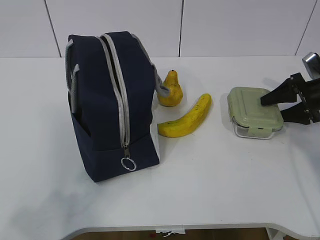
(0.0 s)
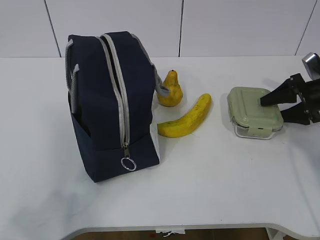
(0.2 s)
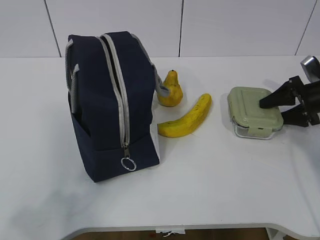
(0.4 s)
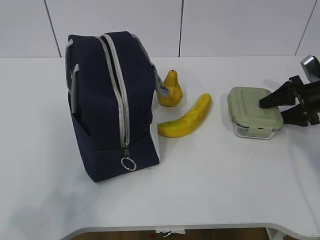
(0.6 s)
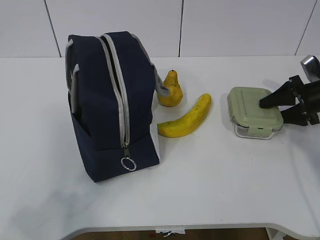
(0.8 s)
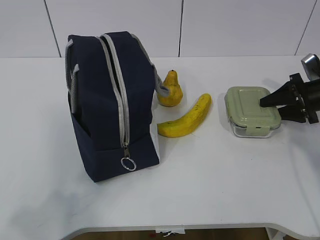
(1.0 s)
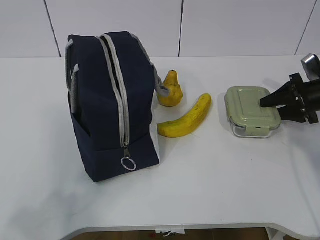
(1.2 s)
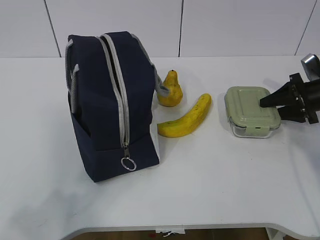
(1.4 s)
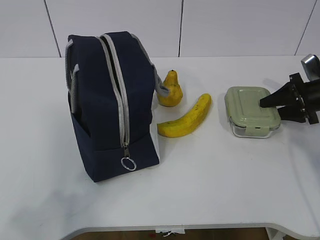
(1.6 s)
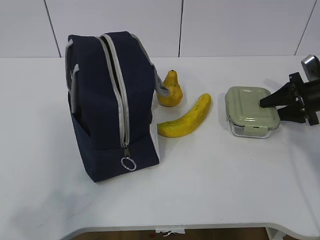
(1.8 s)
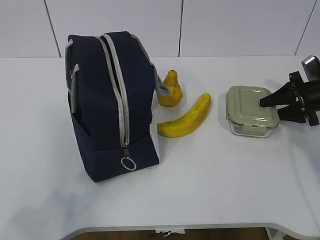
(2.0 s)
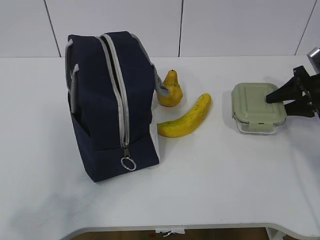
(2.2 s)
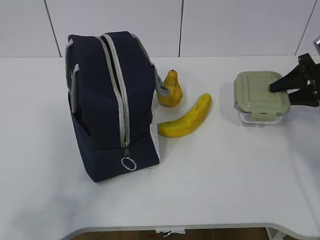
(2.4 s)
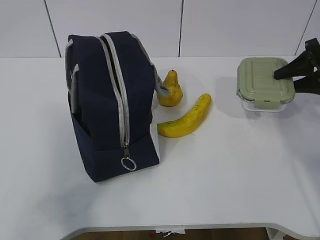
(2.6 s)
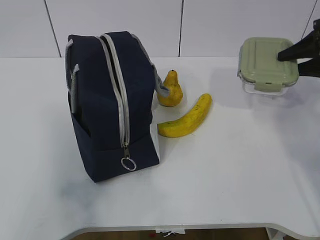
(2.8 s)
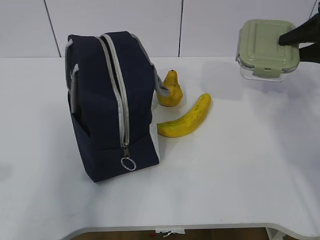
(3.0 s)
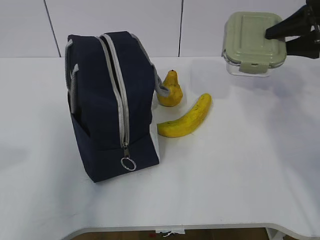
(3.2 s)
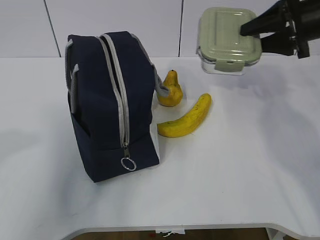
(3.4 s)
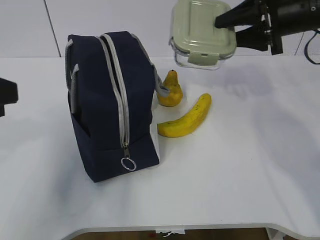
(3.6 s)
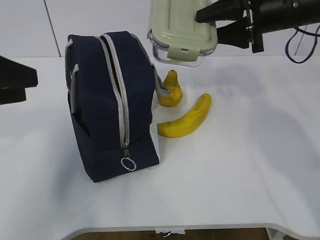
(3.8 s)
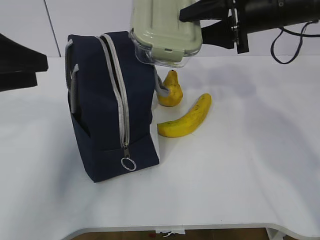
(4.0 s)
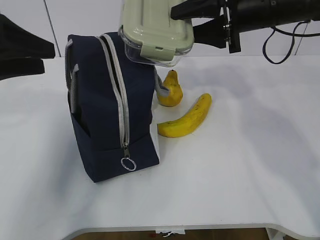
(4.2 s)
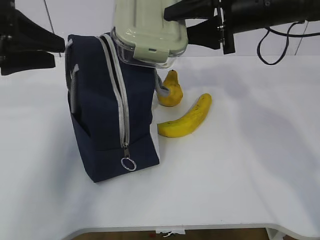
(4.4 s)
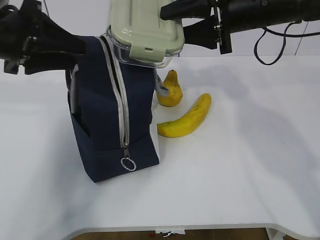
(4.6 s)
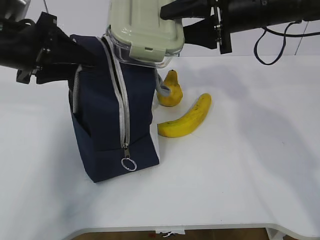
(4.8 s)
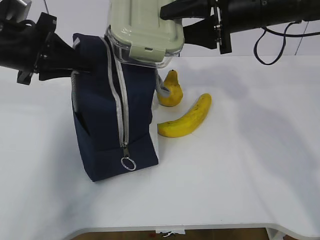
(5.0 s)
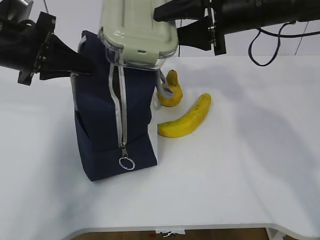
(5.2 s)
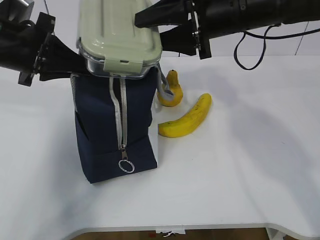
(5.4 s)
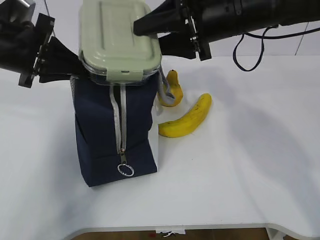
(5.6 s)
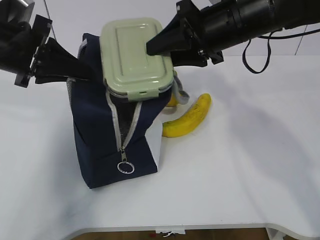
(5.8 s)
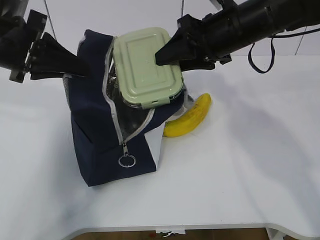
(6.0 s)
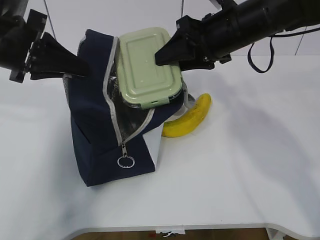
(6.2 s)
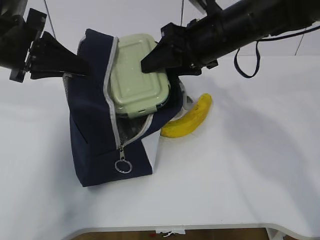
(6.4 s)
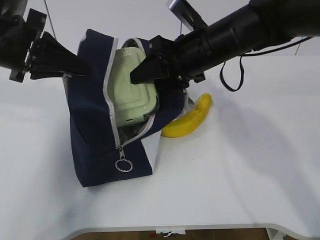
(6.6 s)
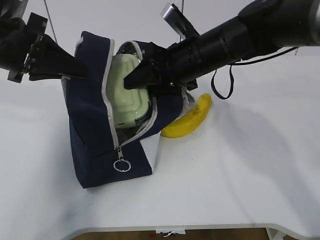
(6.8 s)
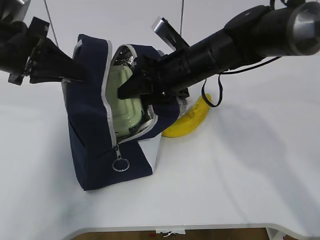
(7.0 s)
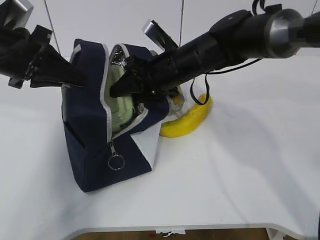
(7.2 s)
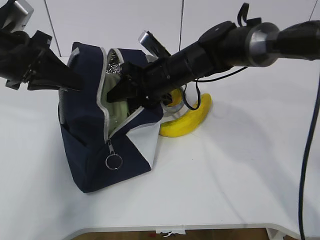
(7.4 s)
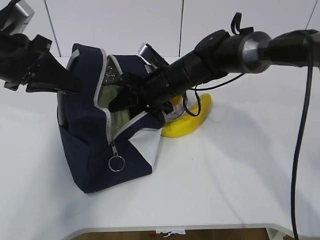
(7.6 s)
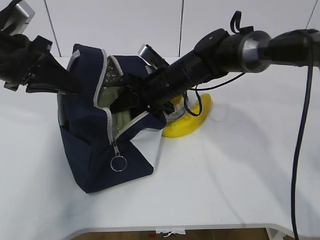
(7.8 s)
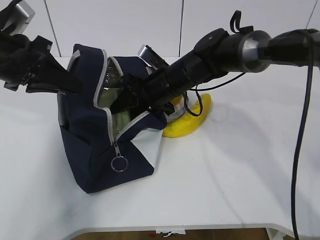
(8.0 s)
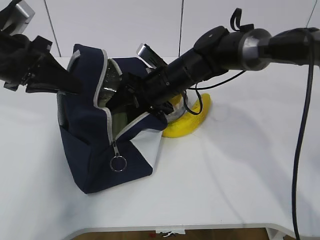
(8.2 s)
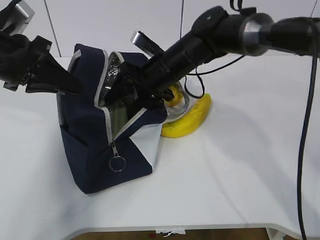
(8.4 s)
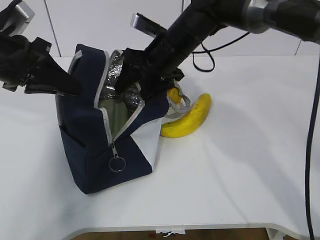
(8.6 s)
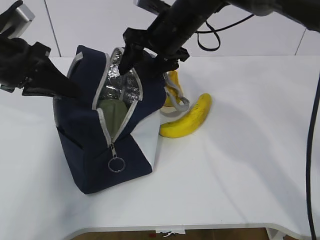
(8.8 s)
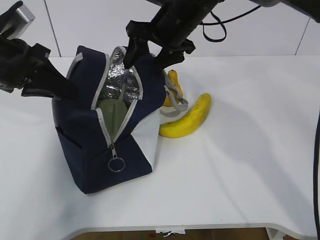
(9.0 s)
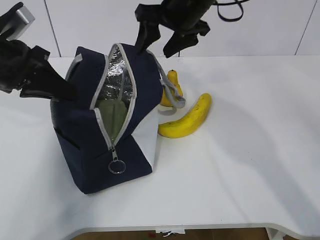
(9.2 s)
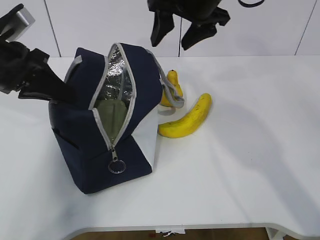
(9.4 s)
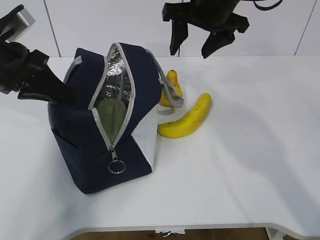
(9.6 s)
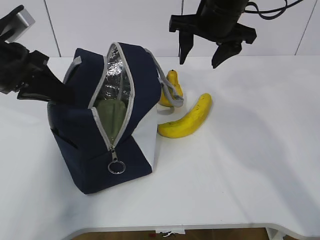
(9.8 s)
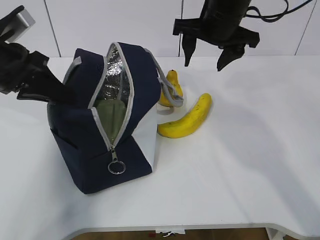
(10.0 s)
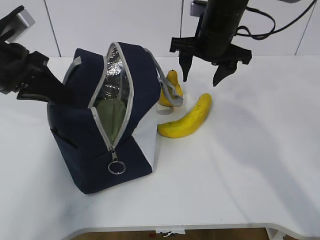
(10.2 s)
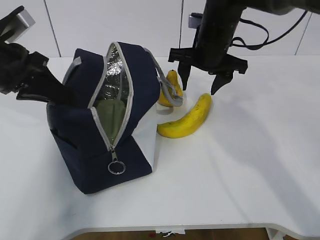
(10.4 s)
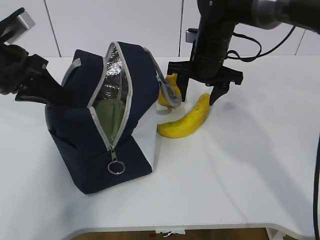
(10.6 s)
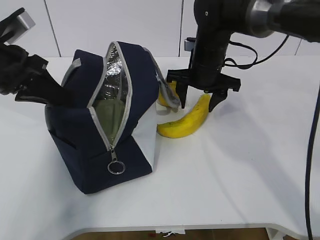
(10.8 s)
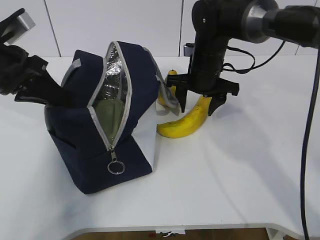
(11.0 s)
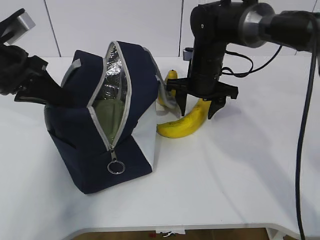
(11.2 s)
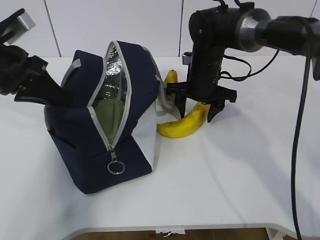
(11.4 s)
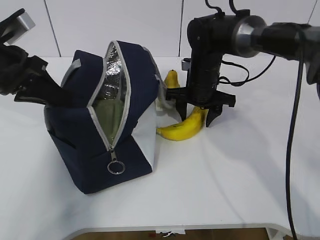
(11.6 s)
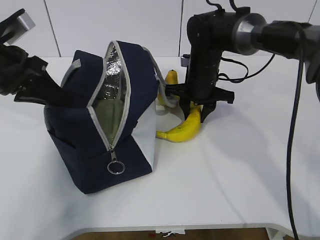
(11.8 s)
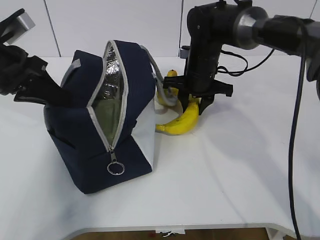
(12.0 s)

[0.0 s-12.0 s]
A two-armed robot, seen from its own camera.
Step, 0.0 to 3.6 s: Grab the lunch bag with your left hand.
Step, 3.8 to 5.6 s: Place it into the bag with your right hand.
Step, 5.8 to 8.6 s: Grab the banana with your right hand.
0.0 to 1.6 s: The right gripper closes.
1.6 to 3.0 s: The right gripper heads upward, covering roughly 15 cm.
3.0 to 4.4 s: The right gripper moves to the left, approximately 20 cm. Meanwhile the left gripper goes some 25 cm forward.
4.4 to 6.0 s: The left gripper closes up.
6.0 to 7.6 s: The right gripper is displaced downward and to the left by some 15 cm.
7.6 to 9.0 s: The right gripper goes approximately 10 cm upward, and opens its fingers.
9.0 to 10.4 s: The right gripper heads to the right, covering roughly 5 cm.
10.4 to 12.0 s: The right gripper goes approximately 5 cm downward, and closes its fingers.

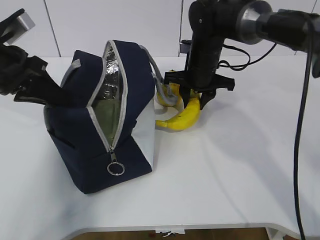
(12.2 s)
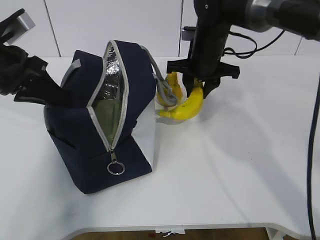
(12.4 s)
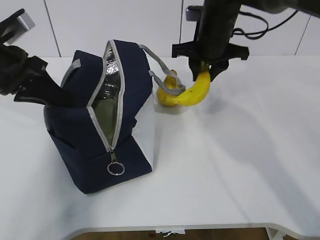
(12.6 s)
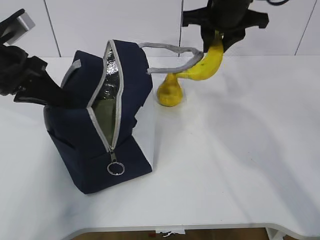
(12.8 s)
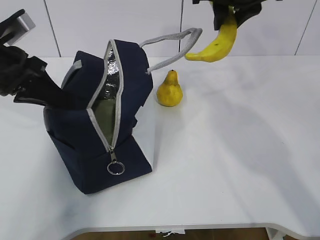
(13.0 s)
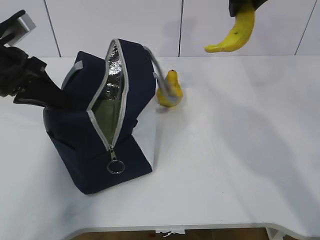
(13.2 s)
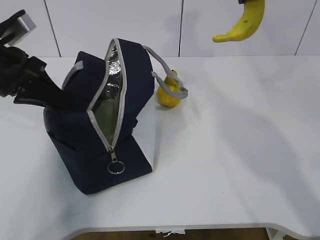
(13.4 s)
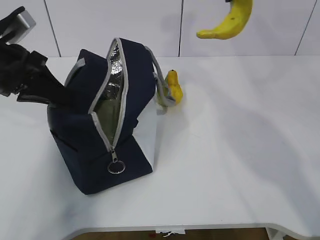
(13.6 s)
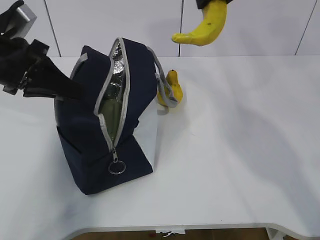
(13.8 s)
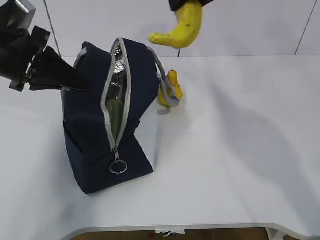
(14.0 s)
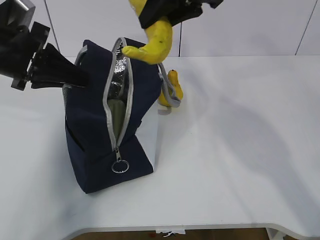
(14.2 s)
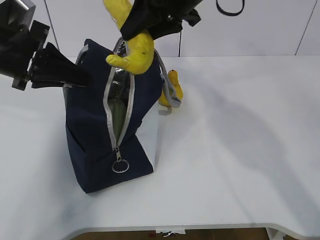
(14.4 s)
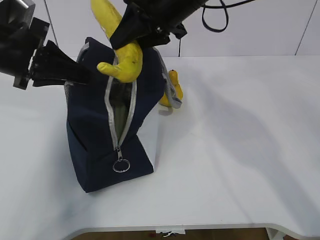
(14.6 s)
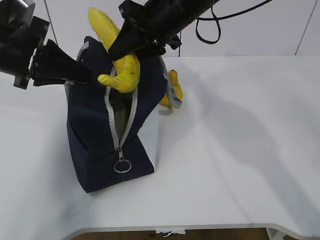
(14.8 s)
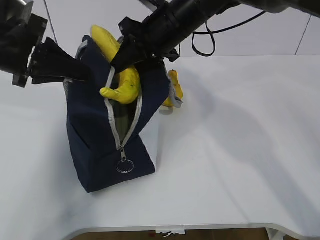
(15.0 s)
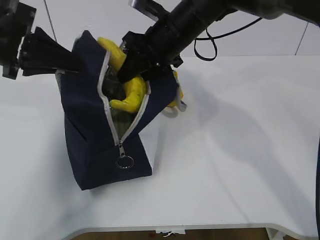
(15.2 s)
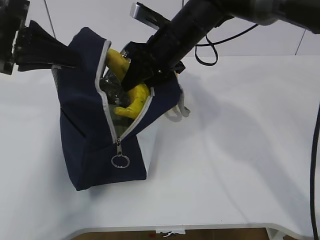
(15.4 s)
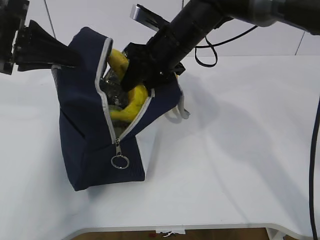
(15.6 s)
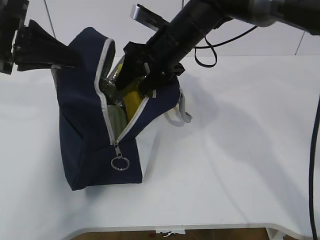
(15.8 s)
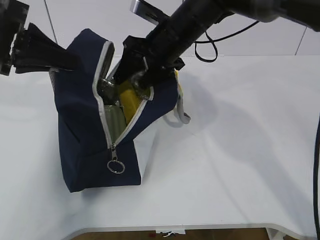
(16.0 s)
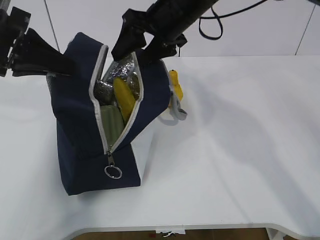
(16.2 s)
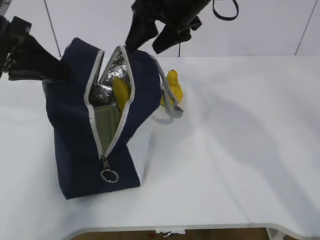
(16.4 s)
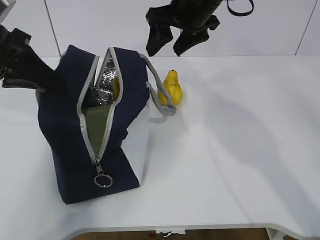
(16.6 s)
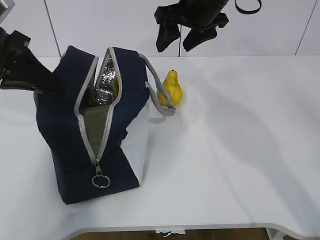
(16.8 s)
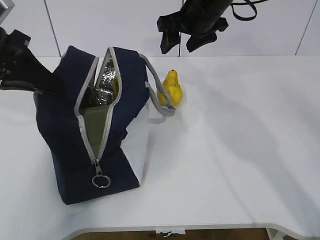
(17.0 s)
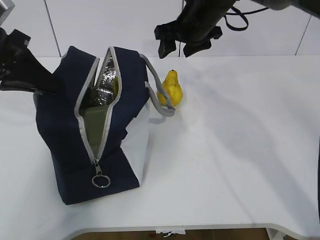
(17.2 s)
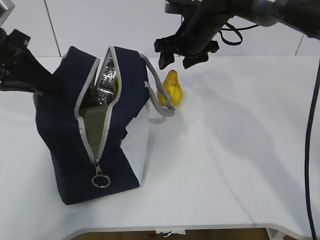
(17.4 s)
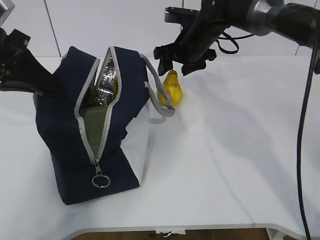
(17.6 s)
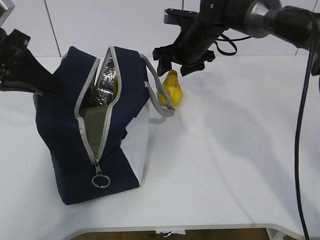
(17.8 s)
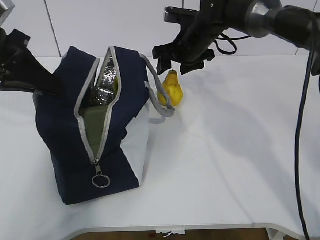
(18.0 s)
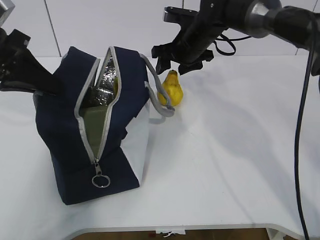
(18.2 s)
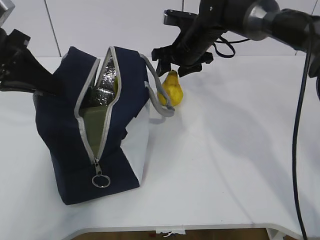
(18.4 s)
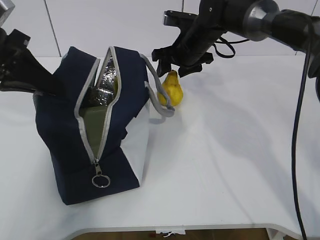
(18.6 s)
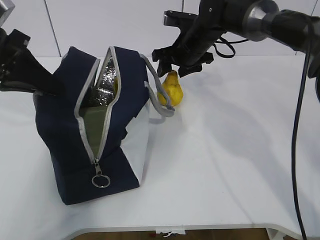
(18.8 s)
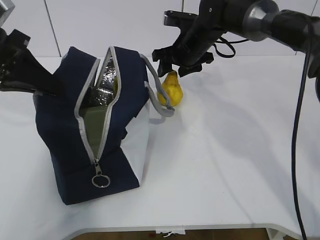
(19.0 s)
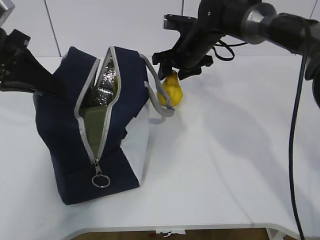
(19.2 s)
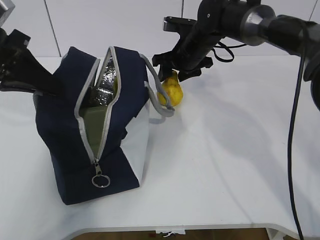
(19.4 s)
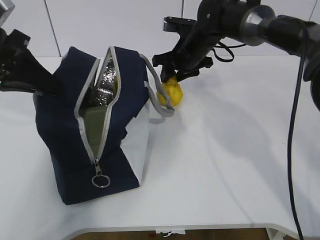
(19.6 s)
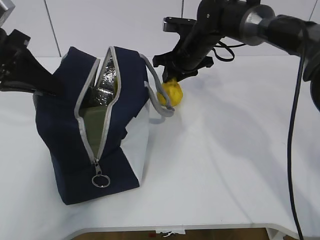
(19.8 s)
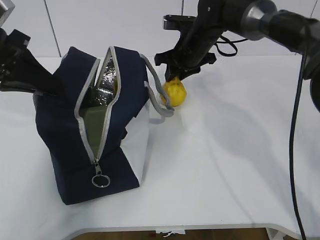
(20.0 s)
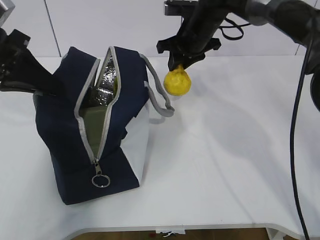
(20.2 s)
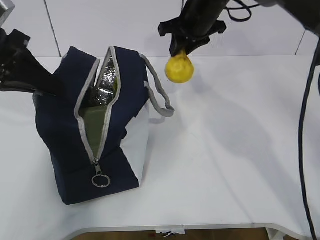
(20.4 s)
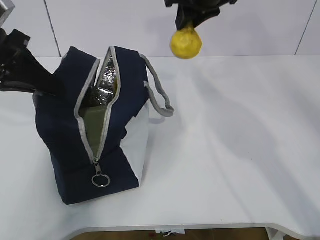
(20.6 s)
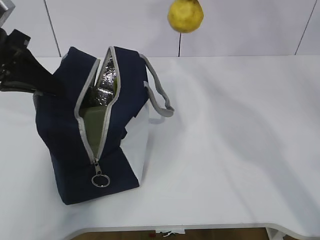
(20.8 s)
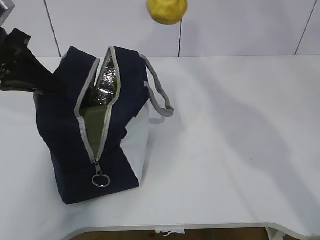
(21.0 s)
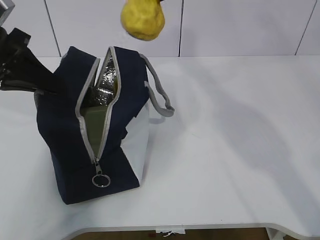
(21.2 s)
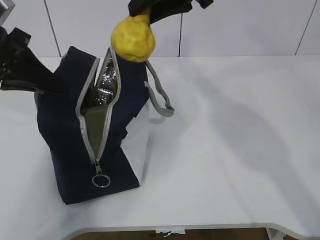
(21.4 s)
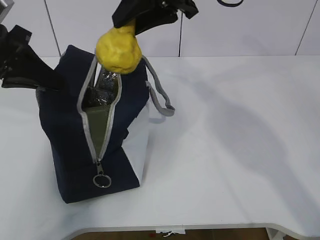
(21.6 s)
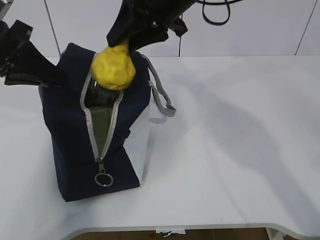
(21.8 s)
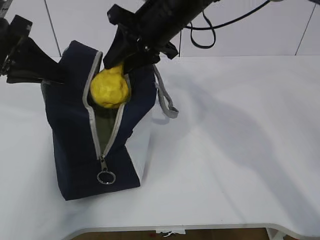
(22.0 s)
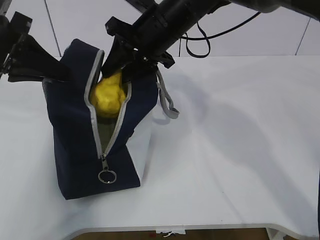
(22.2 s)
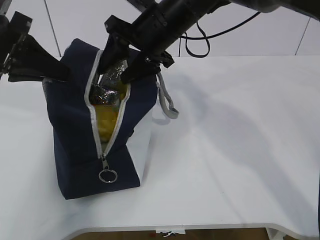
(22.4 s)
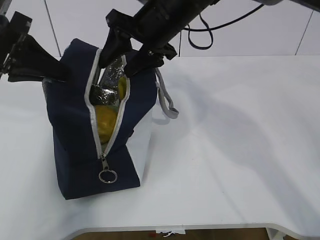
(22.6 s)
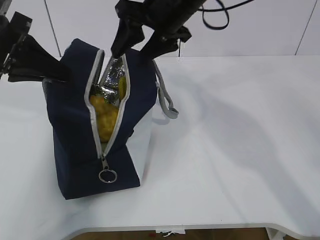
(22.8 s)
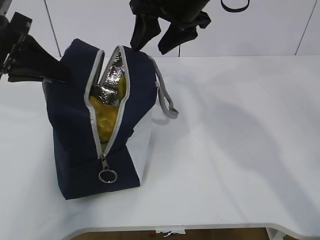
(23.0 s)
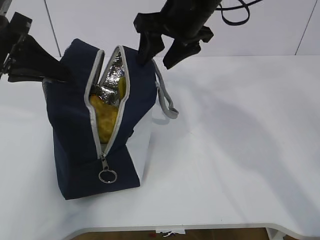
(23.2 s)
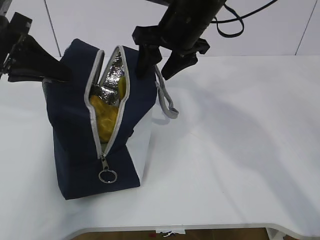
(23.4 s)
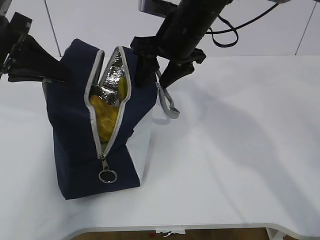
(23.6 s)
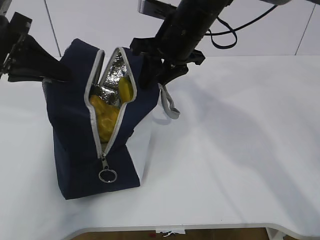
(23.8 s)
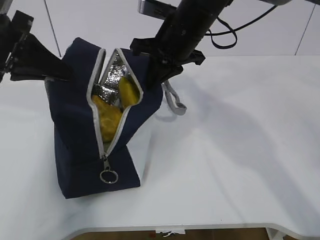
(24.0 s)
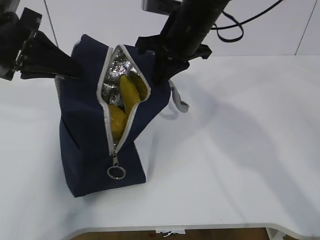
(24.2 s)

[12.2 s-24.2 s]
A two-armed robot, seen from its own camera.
Step, 12.4 to 15.4 s: Grab the pear with your right hand.
Step, 18.4 to 18.8 s: Grab the lunch bag with your right hand.
Step, 19.0 to 20.2 s: Move the lunch bag to the right.
12.2 to 13.8 s: The right gripper travels upward by some 20 cm.
13.8 to 15.2 s: The right gripper moves downward and to the left, roughly 15 cm.
15.2 to 16.6 s: The right gripper shifts approximately 5 cm upward, and opens.
16.6 to 18.2 s: The right gripper travels downward and forward by roughly 10 cm.
18.2 to 19.8 s: The right gripper closes up.
19.8 to 21.2 s: The right gripper heads upward and backward, covering approximately 25 cm.
21.2 to 22.6 s: The right gripper moves downward and to the left, roughly 10 cm, and opens up.
22.6 to 24.2 s: The right gripper closes up.
